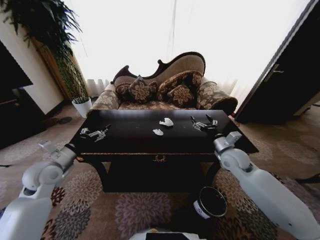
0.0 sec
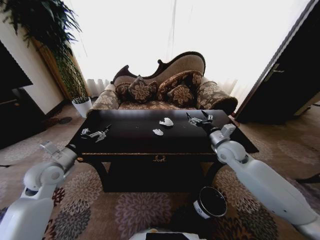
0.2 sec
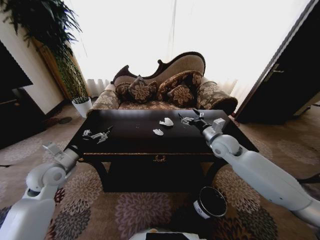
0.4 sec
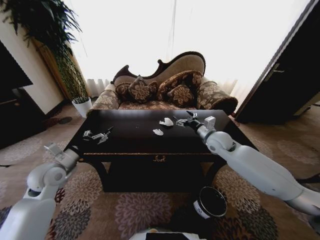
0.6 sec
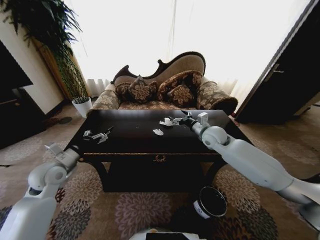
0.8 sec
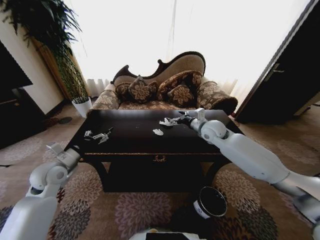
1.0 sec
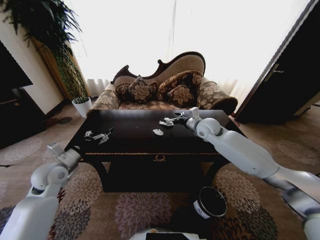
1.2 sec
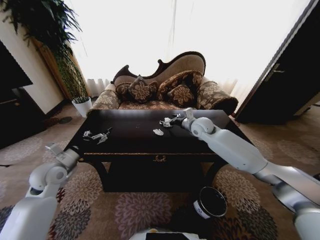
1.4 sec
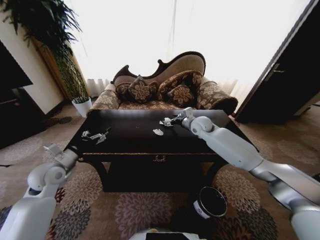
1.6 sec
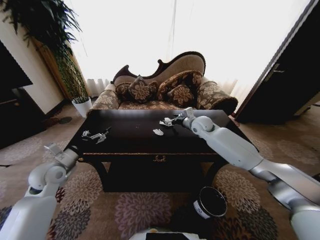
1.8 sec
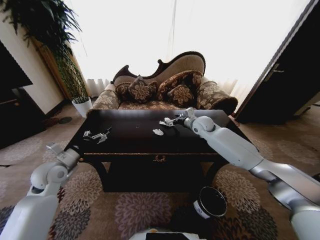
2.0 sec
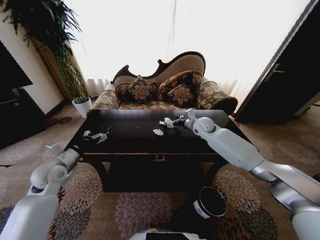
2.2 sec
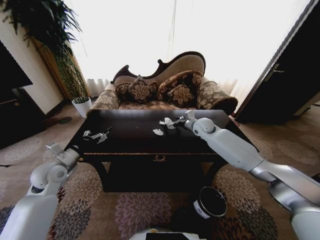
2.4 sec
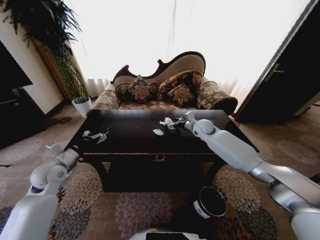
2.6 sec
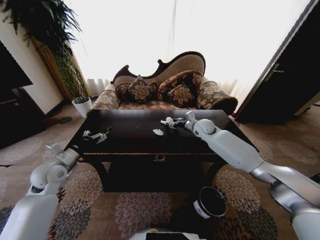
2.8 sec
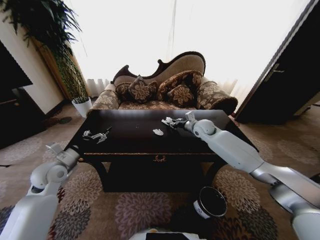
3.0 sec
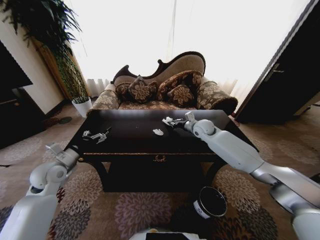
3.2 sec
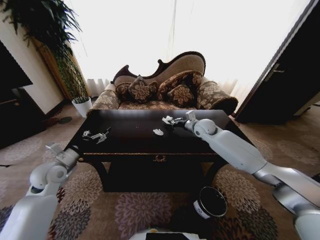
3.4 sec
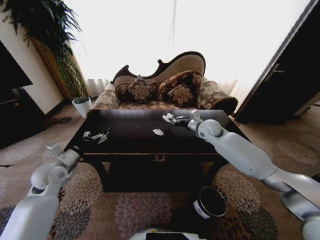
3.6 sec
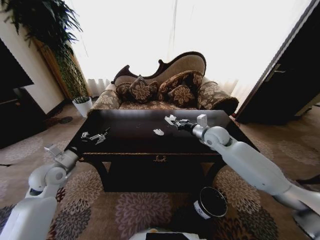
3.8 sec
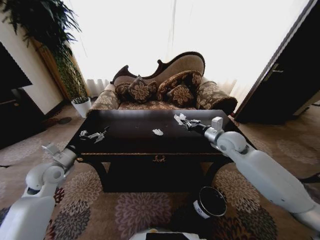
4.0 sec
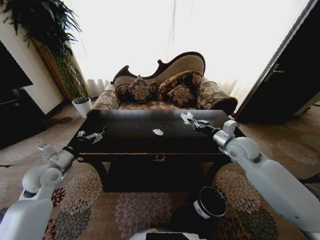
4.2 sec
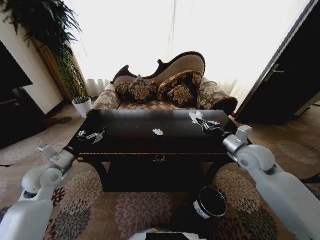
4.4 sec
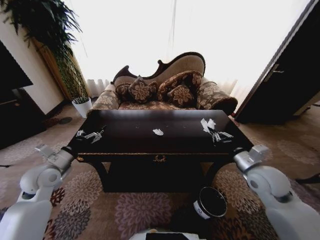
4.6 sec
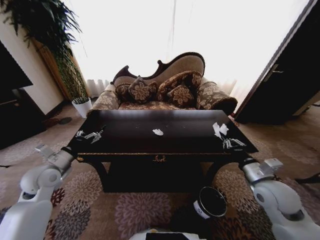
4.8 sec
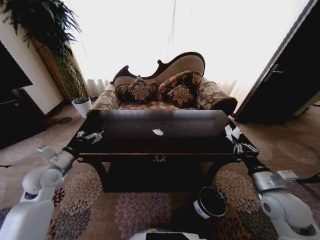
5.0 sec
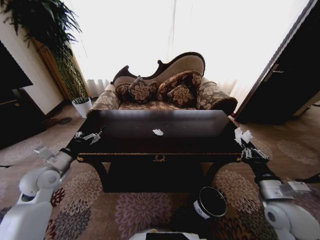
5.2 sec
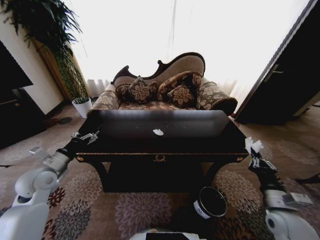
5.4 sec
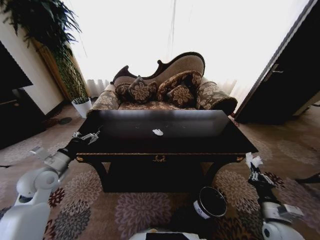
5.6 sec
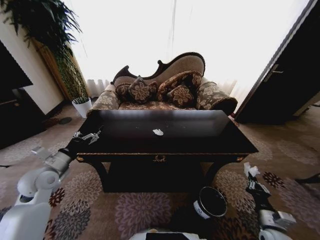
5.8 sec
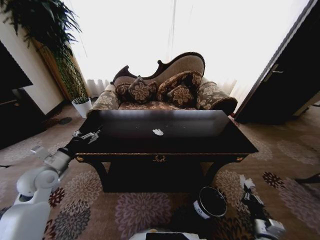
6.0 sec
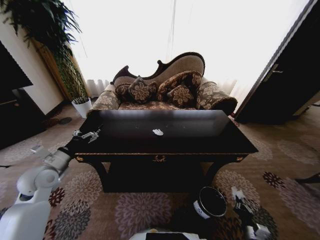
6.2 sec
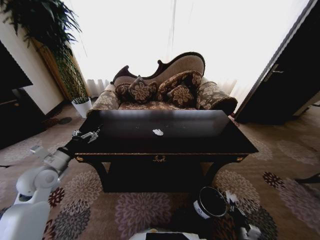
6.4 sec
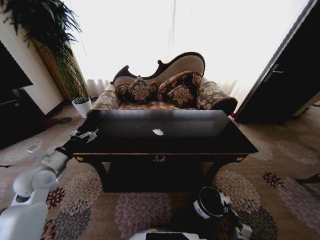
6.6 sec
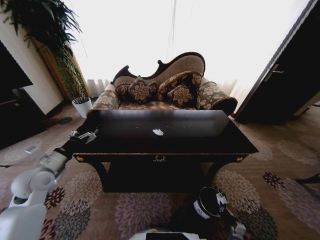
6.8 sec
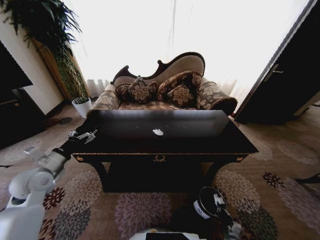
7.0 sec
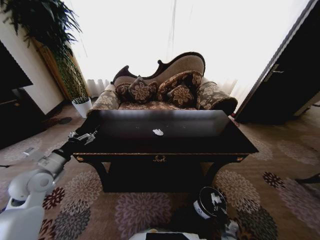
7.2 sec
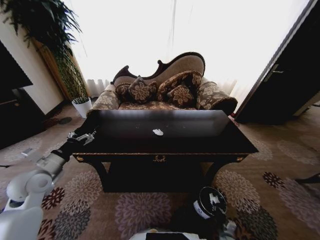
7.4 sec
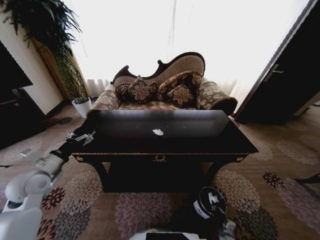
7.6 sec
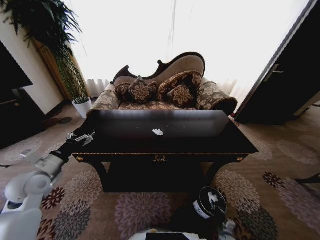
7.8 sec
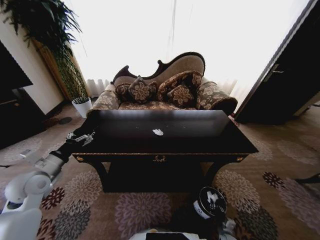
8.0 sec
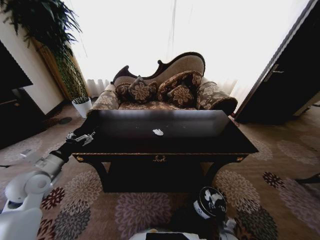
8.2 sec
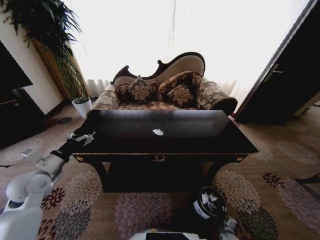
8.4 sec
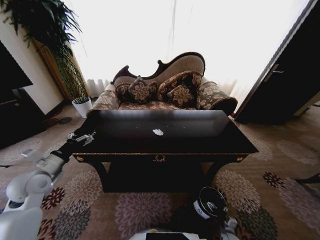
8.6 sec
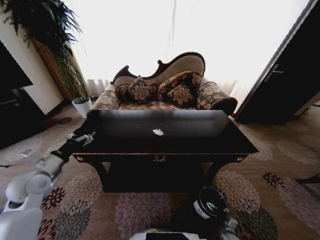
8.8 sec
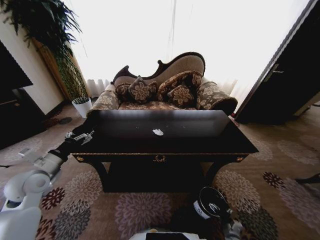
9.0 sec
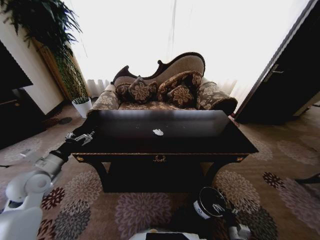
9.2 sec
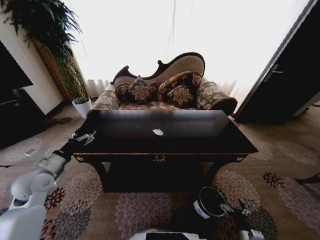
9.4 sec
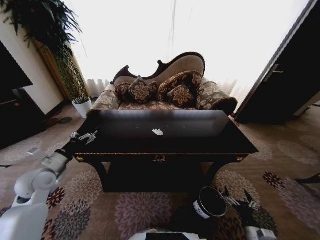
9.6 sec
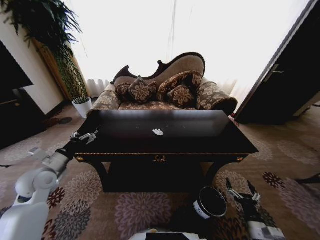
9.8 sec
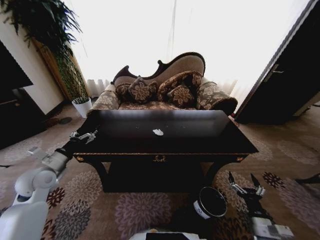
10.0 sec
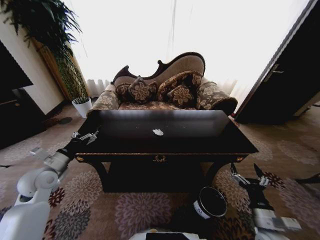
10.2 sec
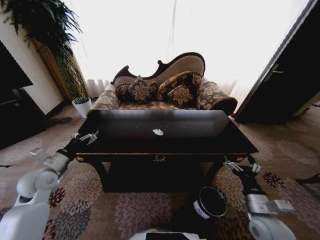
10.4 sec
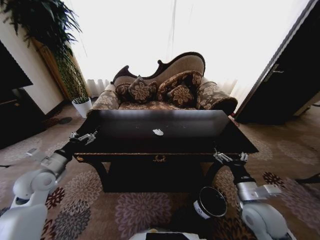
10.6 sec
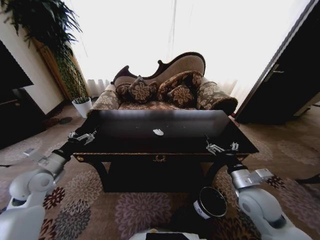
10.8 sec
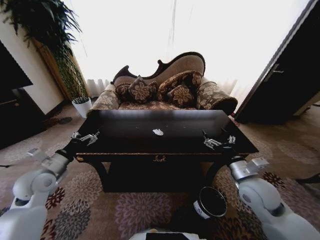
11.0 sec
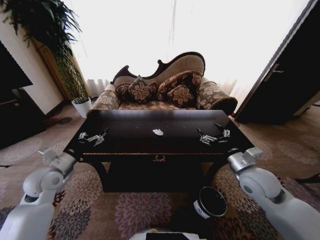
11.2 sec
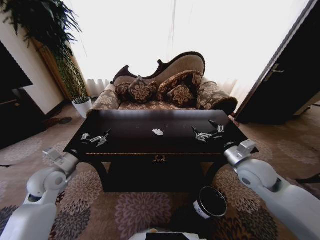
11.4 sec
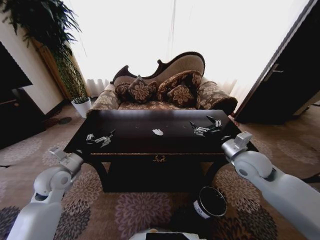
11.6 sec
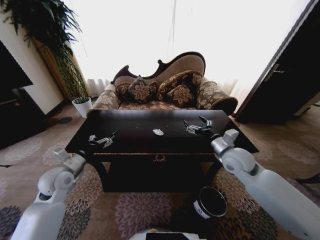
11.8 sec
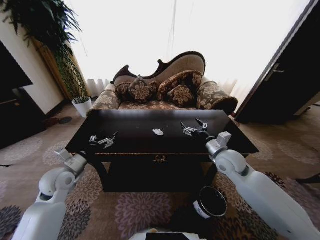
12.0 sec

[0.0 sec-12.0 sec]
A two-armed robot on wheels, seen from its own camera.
Task of the whole recording: Move to the front of the table and place the trash on the table into the trash bin.
0.0 sec to 1.6 sec: The right gripper shifts roughly 20 cm forward and to the left.
1.6 sec to 3.0 sec: The right gripper closes up.
3.0 sec to 4.4 sec: The right gripper goes approximately 25 cm backward and to the right, and closes its fingers.
4.4 sec to 6.0 sec: The right gripper shifts roughly 35 cm downward and backward.
6.0 sec to 7.6 sec: The right gripper shifts roughly 20 cm downward.
9.0 sec to 10.4 sec: The right gripper moves upward, approximately 30 cm.
10.4 sec to 12.0 sec: The right gripper shifts approximately 20 cm forward and upward. The left gripper heads to the right, covering roughly 5 cm.

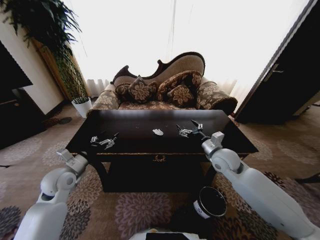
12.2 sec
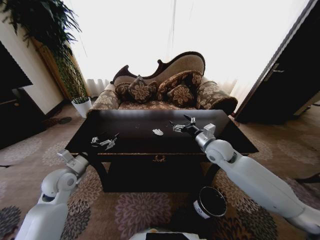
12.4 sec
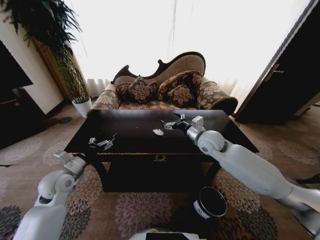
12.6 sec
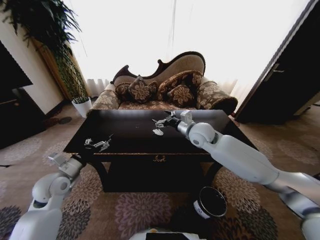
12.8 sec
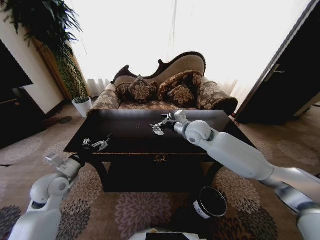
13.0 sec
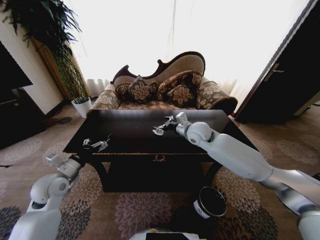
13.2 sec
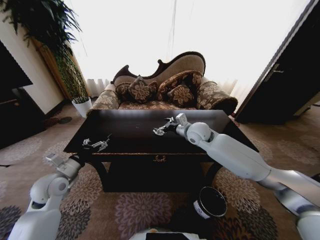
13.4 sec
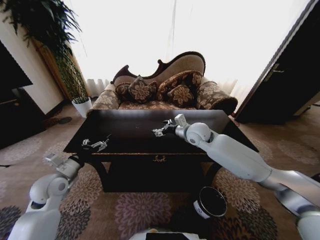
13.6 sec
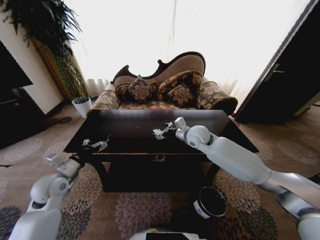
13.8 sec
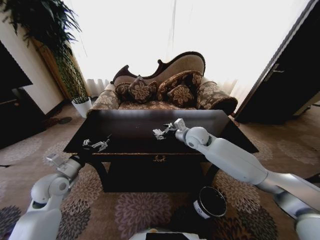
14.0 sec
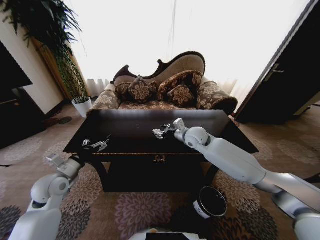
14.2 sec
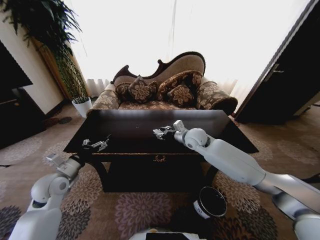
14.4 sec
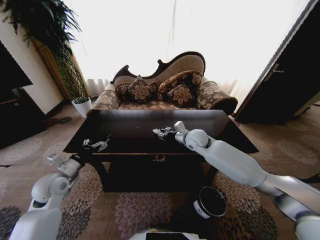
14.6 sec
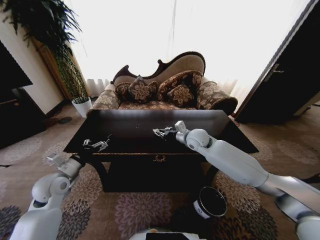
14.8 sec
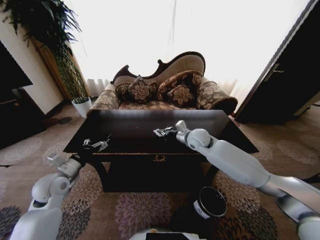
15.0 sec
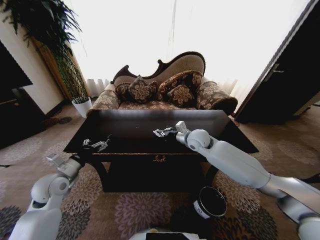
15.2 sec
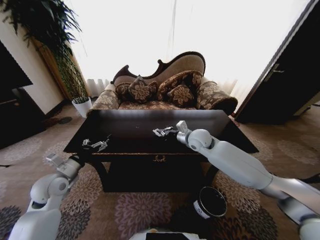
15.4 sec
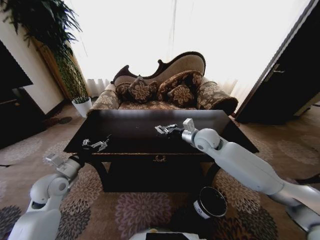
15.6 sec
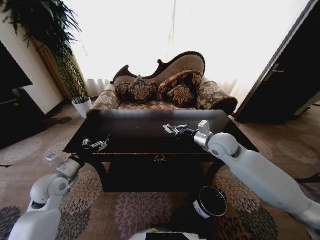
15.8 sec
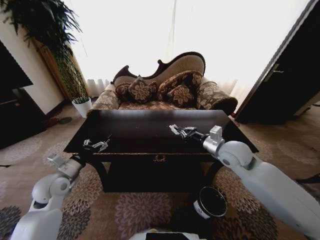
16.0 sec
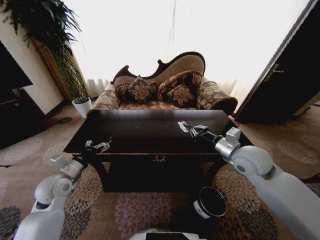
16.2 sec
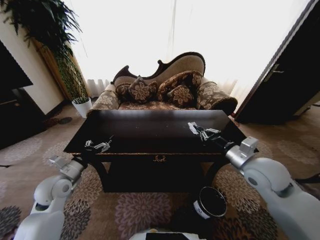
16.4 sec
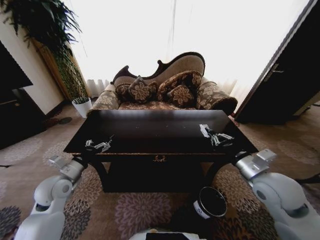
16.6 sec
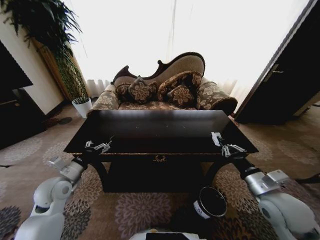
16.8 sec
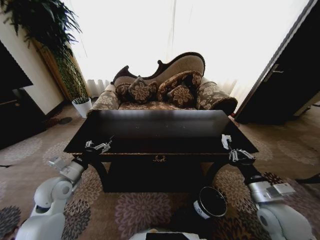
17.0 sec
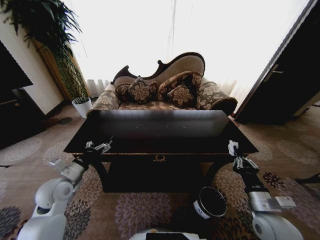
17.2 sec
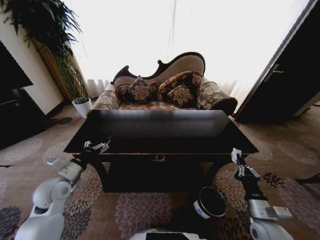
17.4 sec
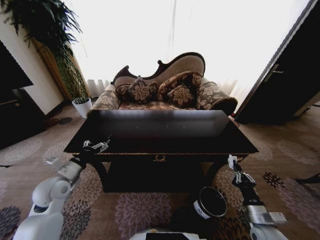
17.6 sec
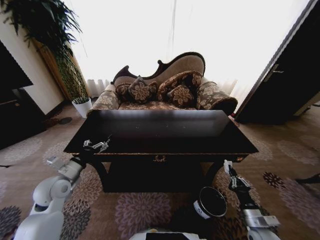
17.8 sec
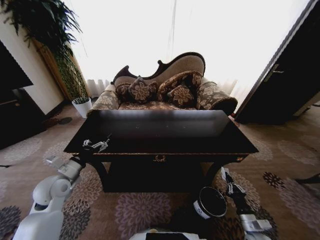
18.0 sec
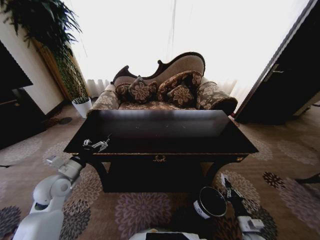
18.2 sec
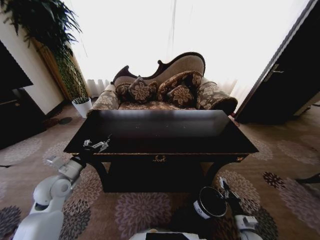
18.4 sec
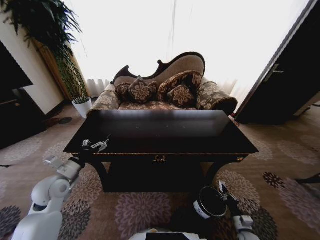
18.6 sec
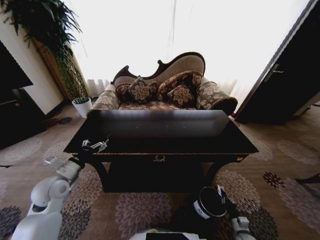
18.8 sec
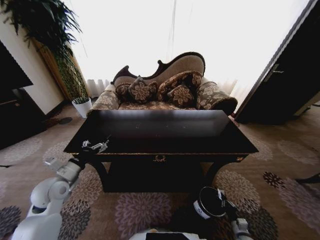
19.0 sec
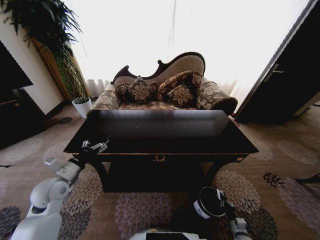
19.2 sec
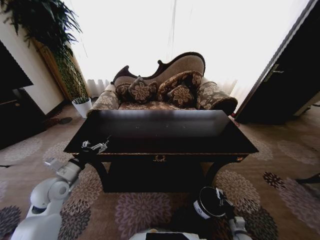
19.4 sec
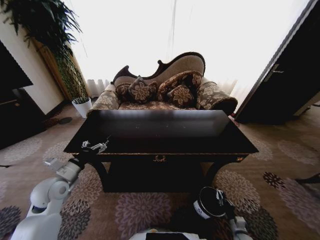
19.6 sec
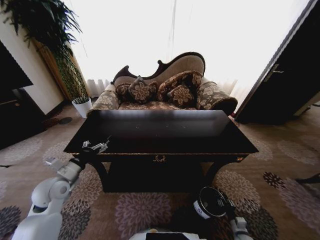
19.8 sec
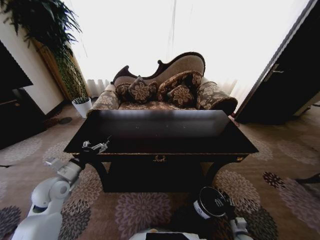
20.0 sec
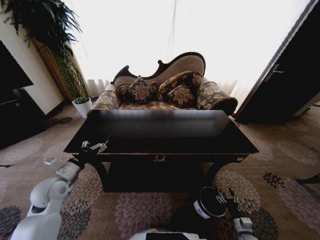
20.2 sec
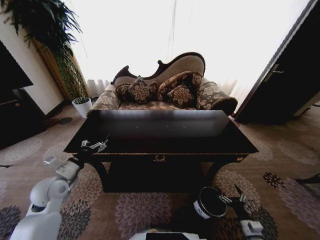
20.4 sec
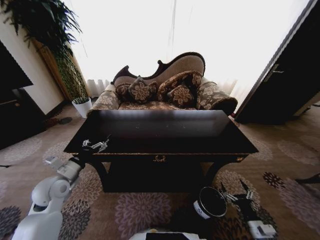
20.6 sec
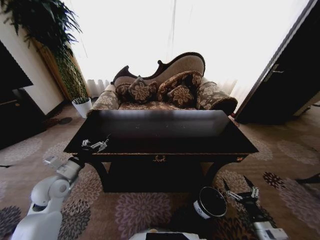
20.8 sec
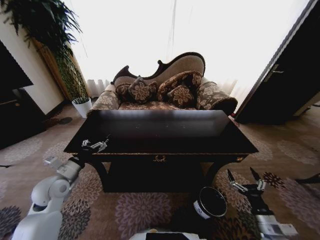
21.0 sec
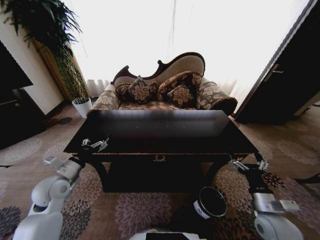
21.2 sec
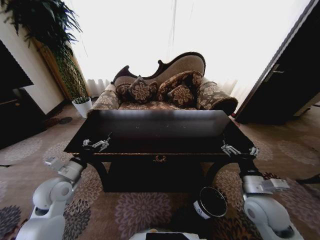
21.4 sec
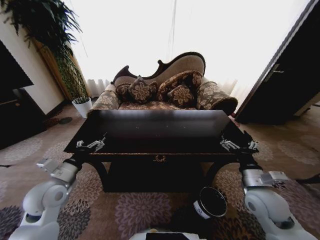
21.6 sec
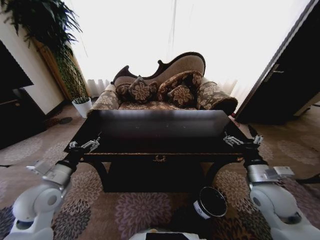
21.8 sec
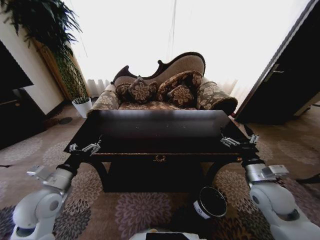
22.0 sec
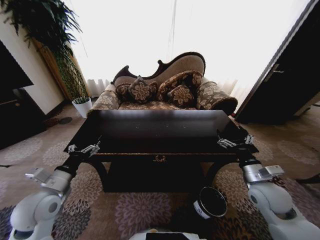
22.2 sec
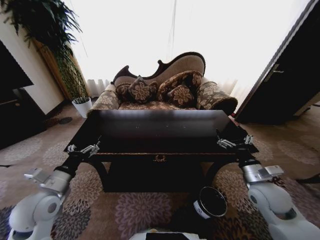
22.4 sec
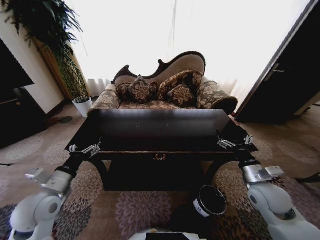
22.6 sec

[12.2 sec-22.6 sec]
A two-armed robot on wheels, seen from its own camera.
Task of the whole recording: Move to the front of the table and place the trash on the table into the trash bin.
12.2 sec to 13.6 sec: The right gripper shifts approximately 15 cm to the left, forward and upward.
13.6 sec to 15.2 sec: The right gripper closes.
15.2 sec to 16.6 sec: The right gripper travels backward and to the right by some 25 cm.
16.6 sec to 18.2 sec: The right gripper travels downward by approximately 35 cm.
18.2 sec to 19.6 sec: The right gripper moves downward, approximately 10 cm.
19.6 sec to 21.2 sec: The right gripper heads upward, covering approximately 30 cm, and opens its fingers.
21.2 sec to 22.6 sec: The left gripper travels backward by roughly 5 cm. Meanwhile the right gripper is displaced forward and upward by roughly 10 cm.
